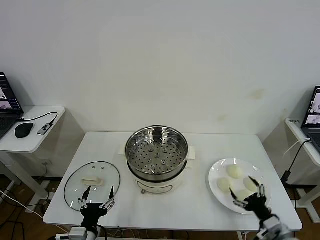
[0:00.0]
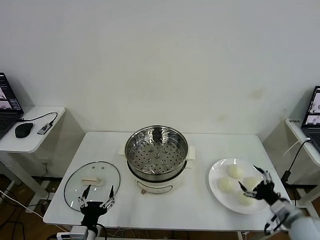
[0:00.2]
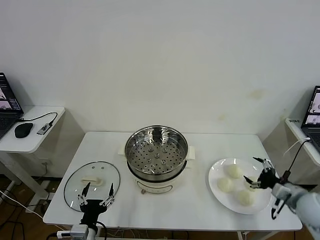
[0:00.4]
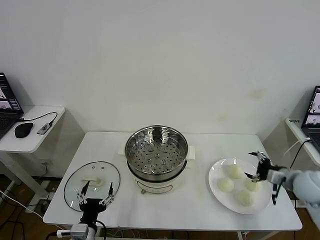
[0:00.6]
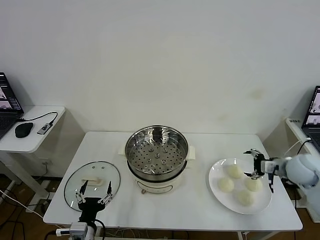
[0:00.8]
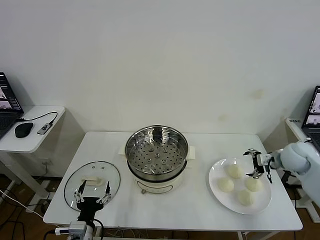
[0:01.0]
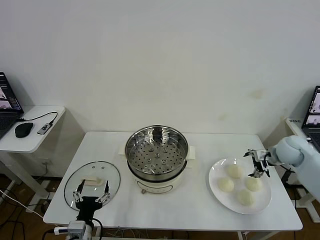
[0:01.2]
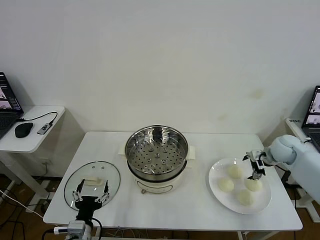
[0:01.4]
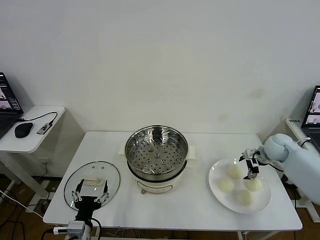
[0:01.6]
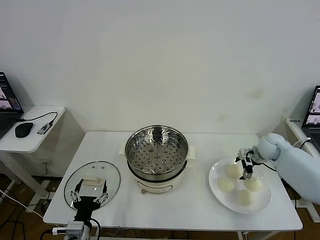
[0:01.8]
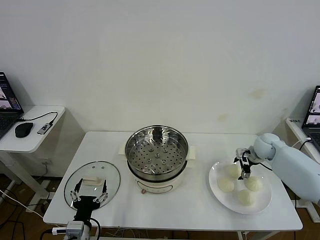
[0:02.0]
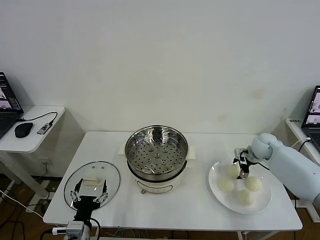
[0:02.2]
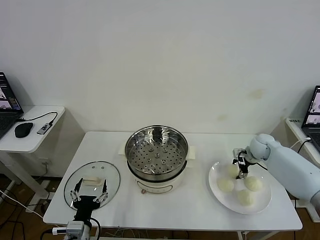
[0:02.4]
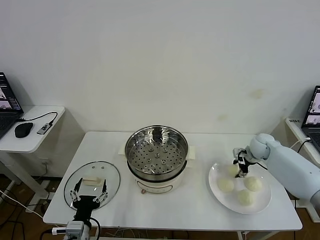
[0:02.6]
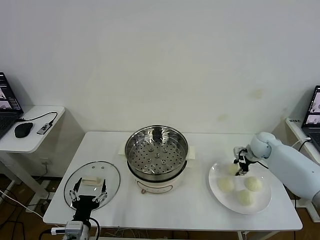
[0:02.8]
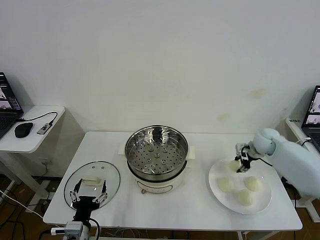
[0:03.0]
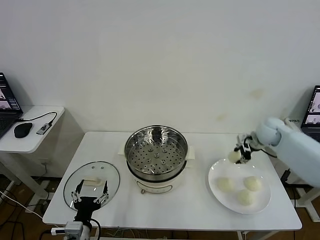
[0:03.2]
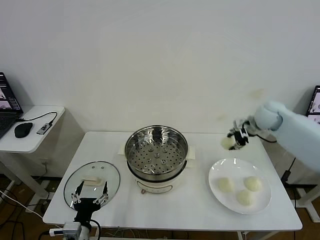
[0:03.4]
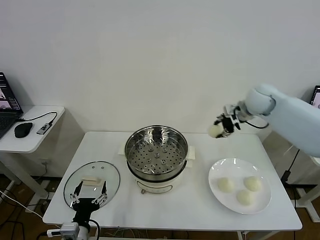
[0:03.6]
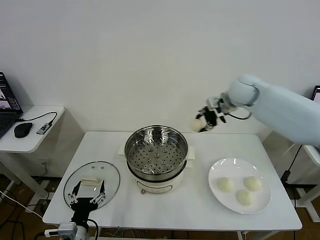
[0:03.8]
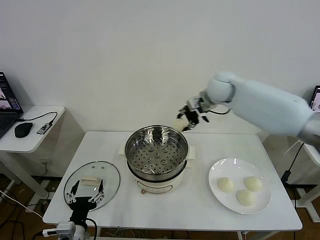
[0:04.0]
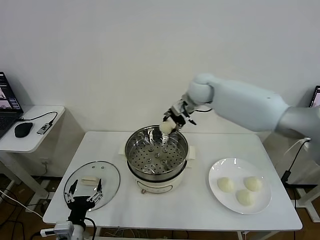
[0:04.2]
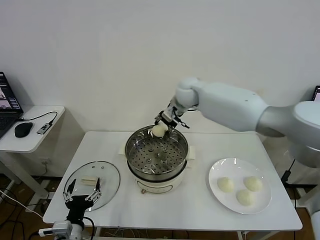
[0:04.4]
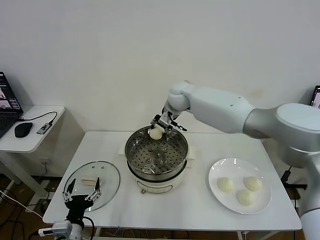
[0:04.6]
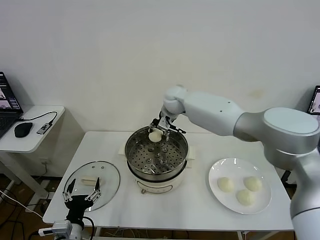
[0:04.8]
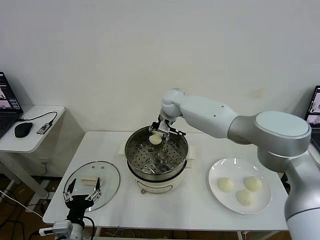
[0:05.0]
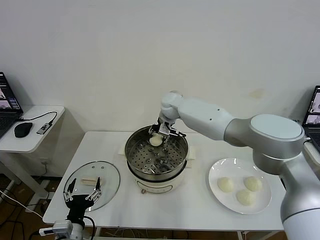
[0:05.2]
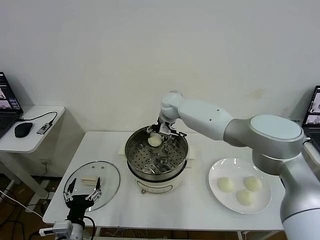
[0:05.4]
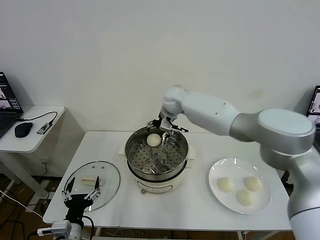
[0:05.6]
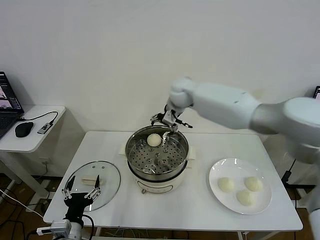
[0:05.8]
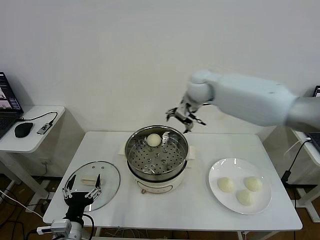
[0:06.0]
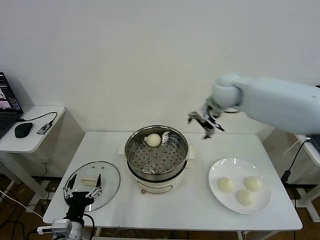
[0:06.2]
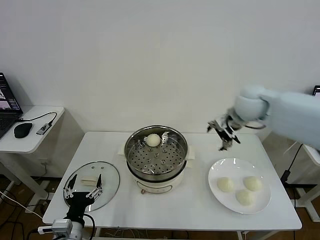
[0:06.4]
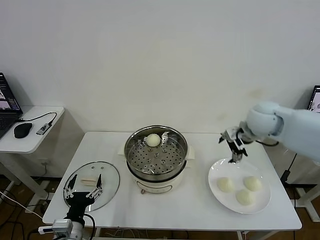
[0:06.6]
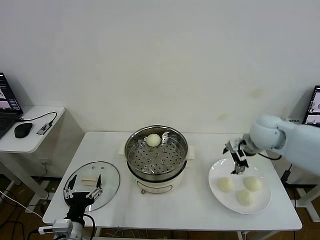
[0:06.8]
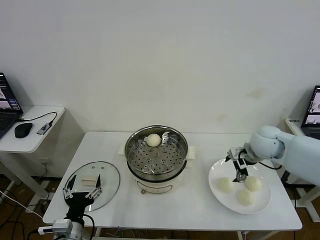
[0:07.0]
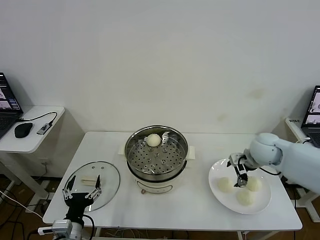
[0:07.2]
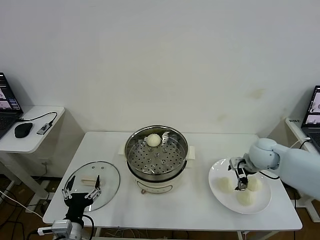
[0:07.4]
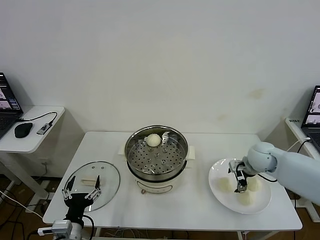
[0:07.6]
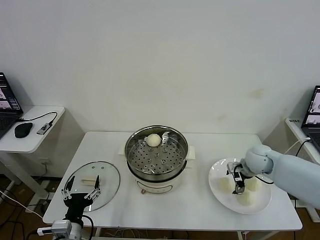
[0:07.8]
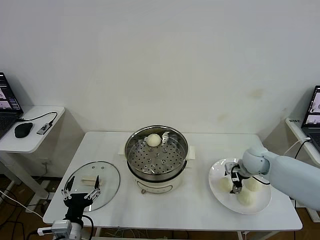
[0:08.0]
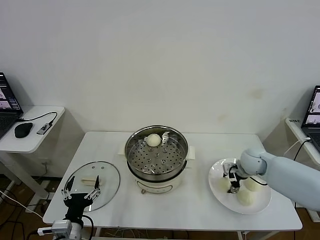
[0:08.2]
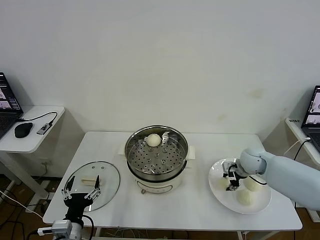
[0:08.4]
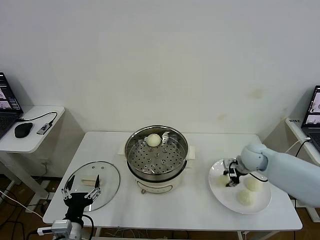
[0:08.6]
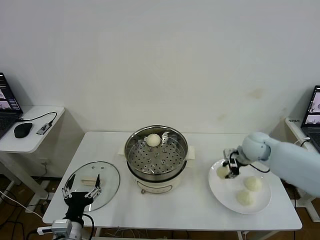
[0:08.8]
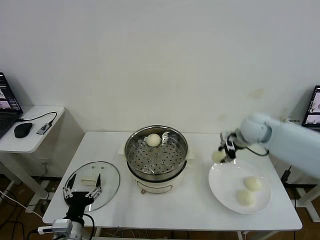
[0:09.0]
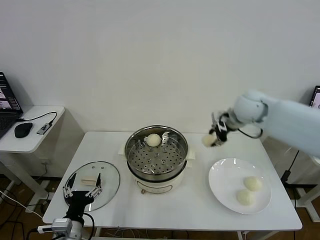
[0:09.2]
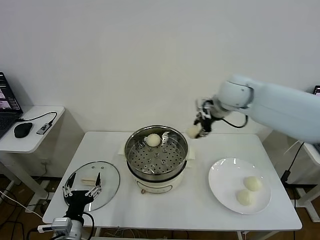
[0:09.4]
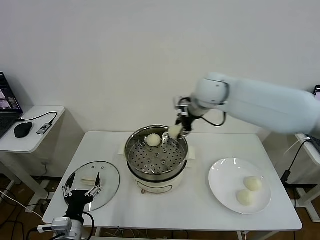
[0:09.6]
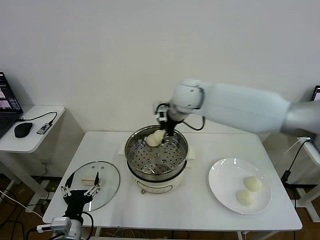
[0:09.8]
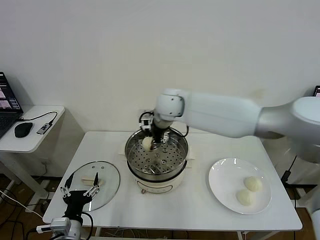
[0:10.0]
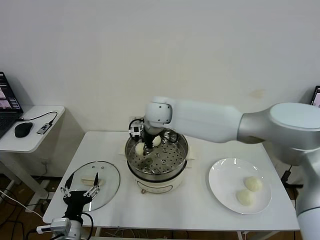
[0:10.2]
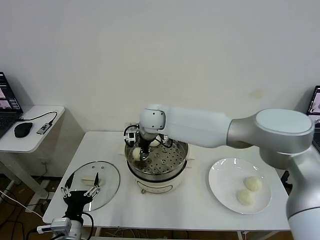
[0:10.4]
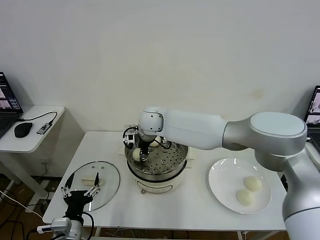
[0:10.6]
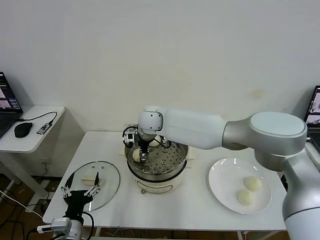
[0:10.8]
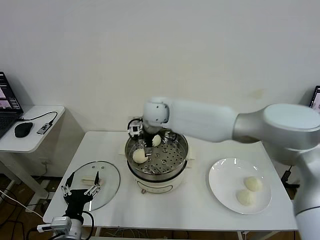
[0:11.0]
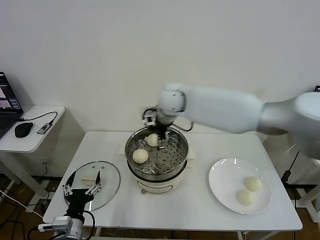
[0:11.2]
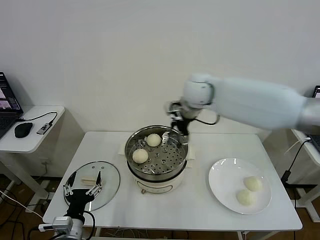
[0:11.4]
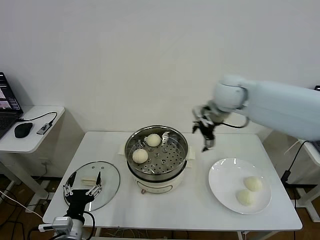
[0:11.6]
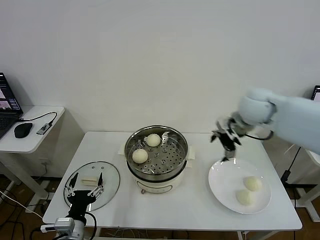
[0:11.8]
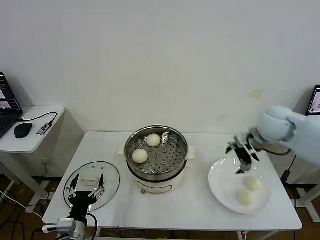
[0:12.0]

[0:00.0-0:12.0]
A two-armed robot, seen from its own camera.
Task of the whole recording: take steamed baozi put them in steamer then cover it.
Step, 0:00.0 to 0:02.6: Grasp the baozi in the plate with right gripper.
Step, 0:02.8 to 0:05.4: Place the baozi on the steamer with right gripper.
Step, 0:05.6 to 0:08.4: Grasp the baozi in the plate with right gripper.
Step, 0:08.6 to 0:11.0: Place the baozi on the steamer with right gripper.
0:01.6 to 0:03.0: The right gripper changes place by approximately 5 cm, and closes.
0:03.0 to 0:04.4: The right gripper moves to the left, roughly 35 cm.
0:04.4 to 0:06.0: The right gripper shifts some 10 cm to the right and upward, and opens.
0:06.0 to 0:07.6: The right gripper heads downward, to the right and backward, covering approximately 30 cm.
0:07.6 to 0:09.0: The right gripper shifts some 15 cm upward, forward and to the left, and closes up.
0:09.0 to 0:10.4: The right gripper goes some 30 cm to the left.
0:10.4 to 0:12.0: The right gripper is displaced to the right by about 40 cm, and opens.

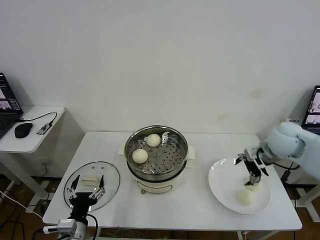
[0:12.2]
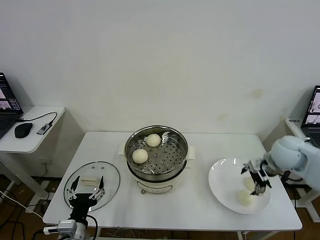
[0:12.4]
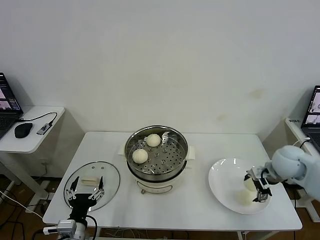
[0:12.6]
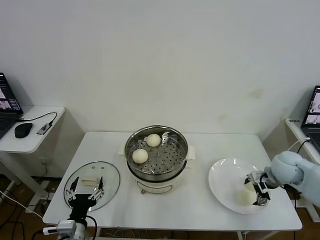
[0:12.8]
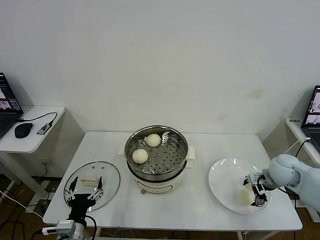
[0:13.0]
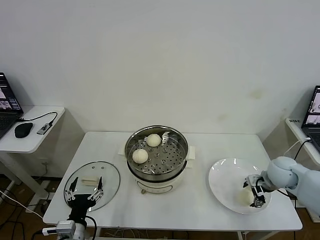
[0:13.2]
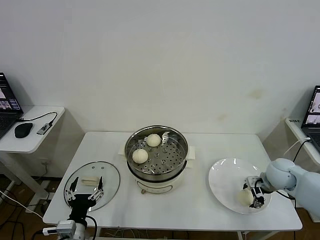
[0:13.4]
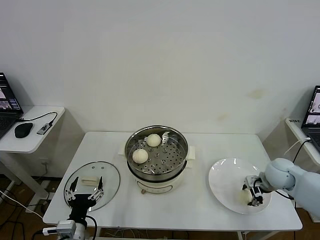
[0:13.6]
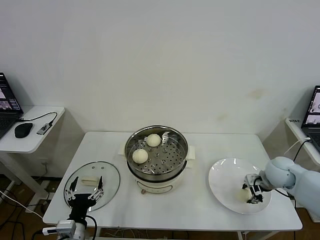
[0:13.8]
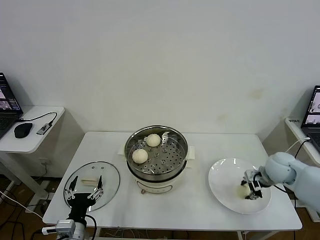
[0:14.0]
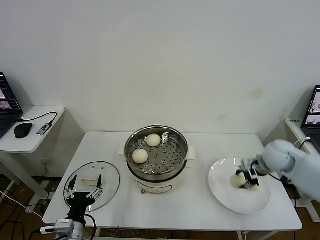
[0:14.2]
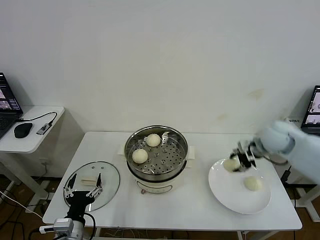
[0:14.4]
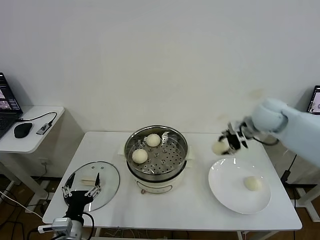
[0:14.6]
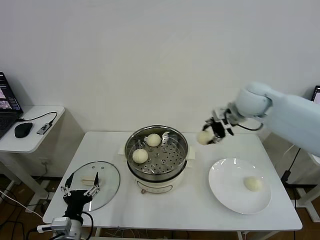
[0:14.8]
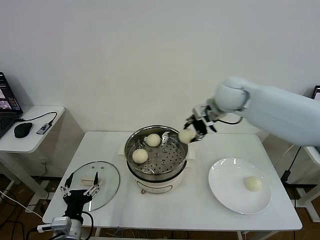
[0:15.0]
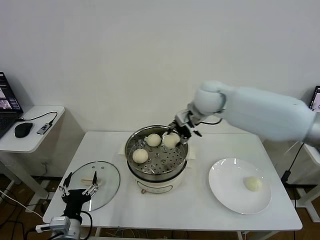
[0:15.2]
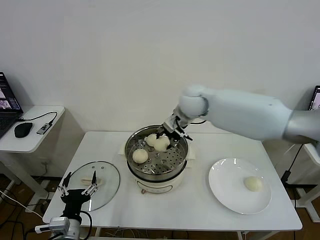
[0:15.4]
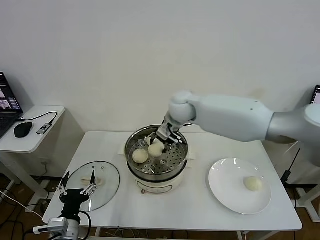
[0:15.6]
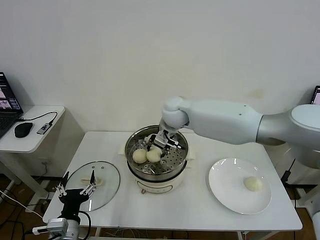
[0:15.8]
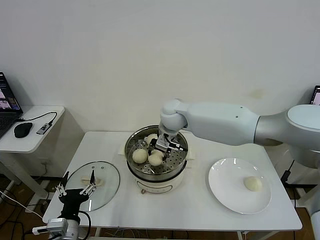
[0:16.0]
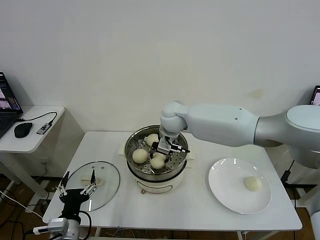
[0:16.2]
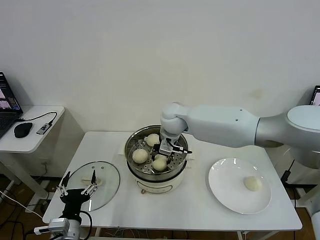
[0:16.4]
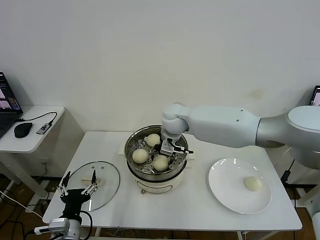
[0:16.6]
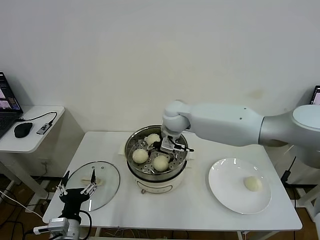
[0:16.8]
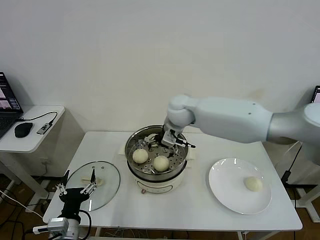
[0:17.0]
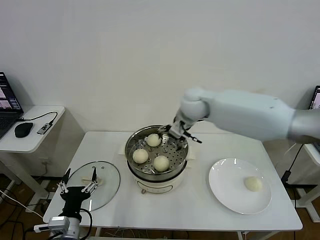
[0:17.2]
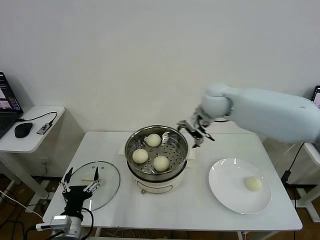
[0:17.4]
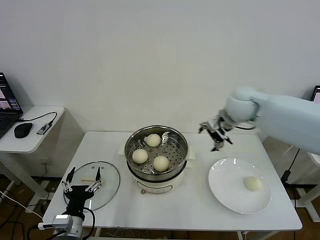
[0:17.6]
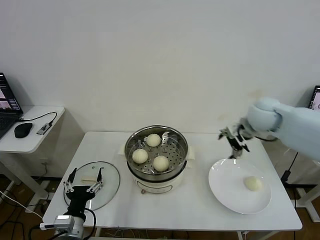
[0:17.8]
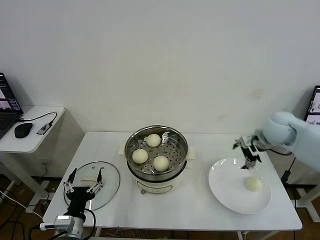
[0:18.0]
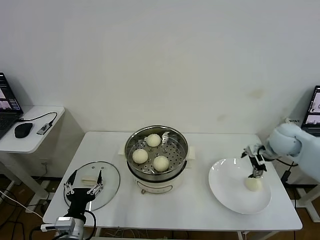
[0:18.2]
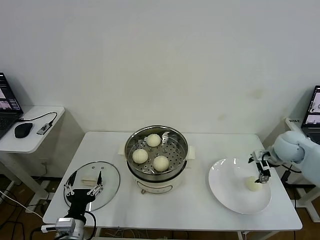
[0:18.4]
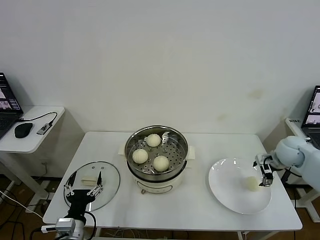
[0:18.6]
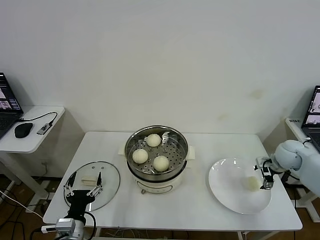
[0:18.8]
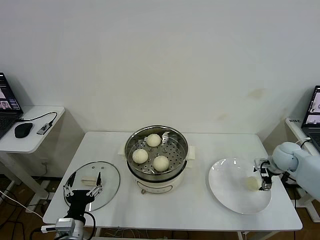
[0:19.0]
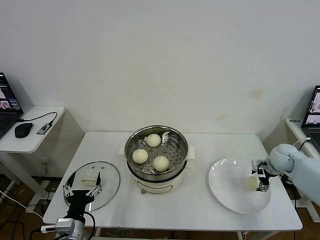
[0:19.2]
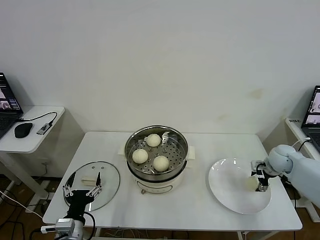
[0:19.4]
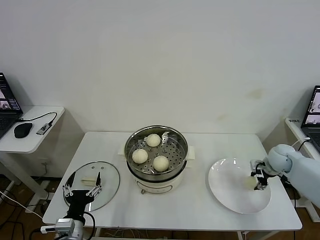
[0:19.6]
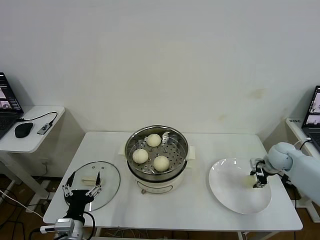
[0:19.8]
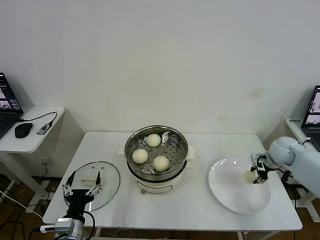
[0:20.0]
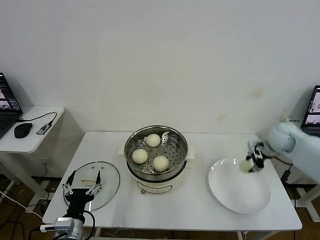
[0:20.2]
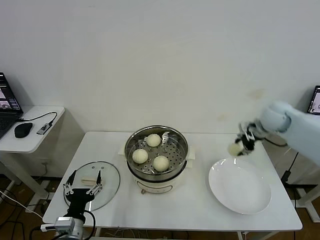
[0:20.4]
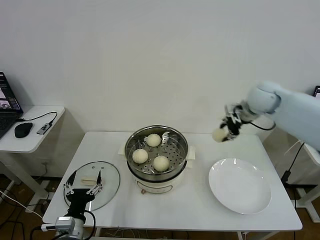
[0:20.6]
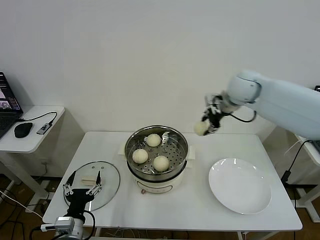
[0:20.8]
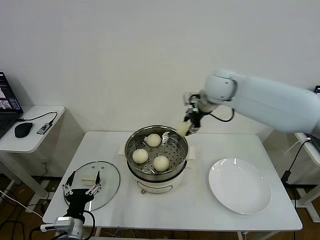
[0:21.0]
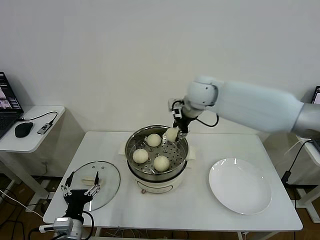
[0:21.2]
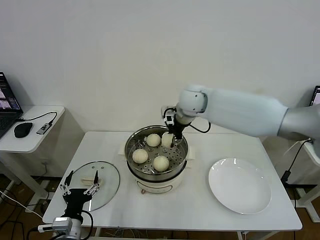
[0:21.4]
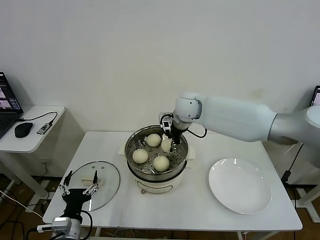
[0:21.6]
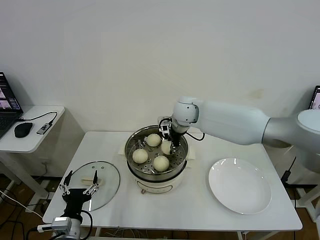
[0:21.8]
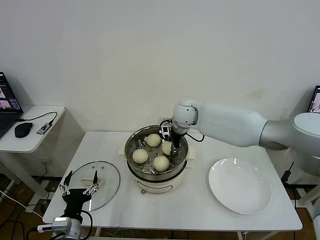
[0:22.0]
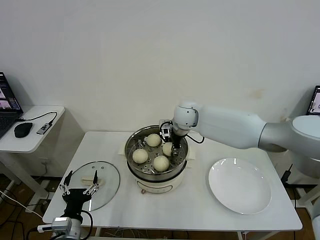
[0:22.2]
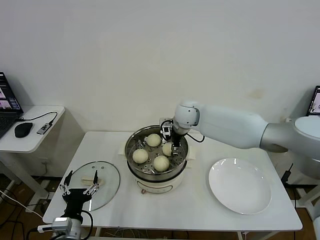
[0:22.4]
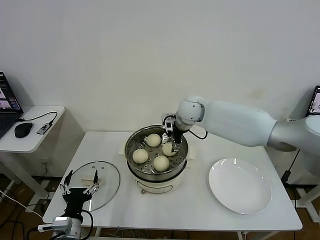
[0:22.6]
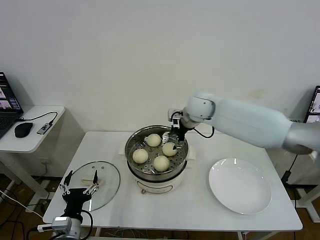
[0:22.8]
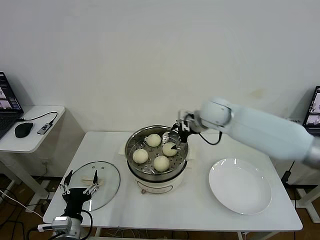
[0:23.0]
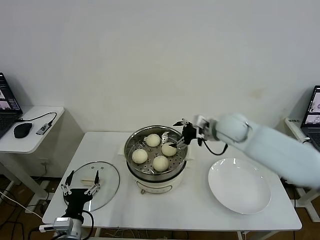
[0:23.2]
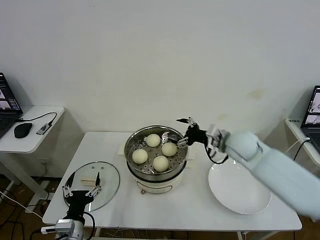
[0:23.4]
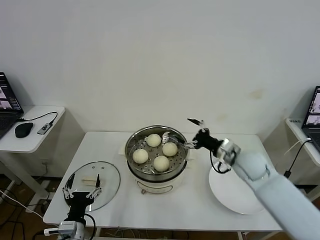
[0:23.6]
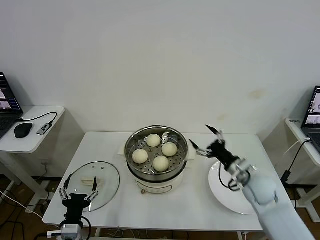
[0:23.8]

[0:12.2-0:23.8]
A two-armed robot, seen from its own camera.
Task of the whole recording: take steamed baozi put them in steamer then cover it.
Step, 0:12.2 to 0:13.8: Grasp the baozi in the plate with right gripper.
Step, 0:14.0 to 0:16.8: Place the baozi on the steamer with right gripper.
Step, 0:17.0 to 0:19.8: Grasp the baozi in the plate with right gripper.
Step, 0:20.0 to 0:22.6: Place the baozi on the steamer with right gripper.
0:12.2 to 0:13.6: The right gripper shifts roughly 10 cm downward, and closes its fingers.
0:13.6 to 0:15.0: The right gripper travels upward, to the left and forward by some 35 cm.
0:15.0 to 0:16.6: The right gripper is displaced to the left and downward by some 15 cm, and opens its fingers.
0:16.6 to 0:18.0: The right gripper moves to the right, roughly 35 cm.
0:18.0 to 0:19.4: The right gripper goes some 15 cm downward and to the right, and closes.
0:19.4 to 0:21.0: The right gripper moves to the left and upward, approximately 40 cm, and closes up.
0:21.0 to 0:22.4: The right gripper travels downward and to the left by some 15 cm, and opens up.
0:22.4 to 0:23.8: The right gripper travels to the right, backward and downward by approximately 35 cm.
